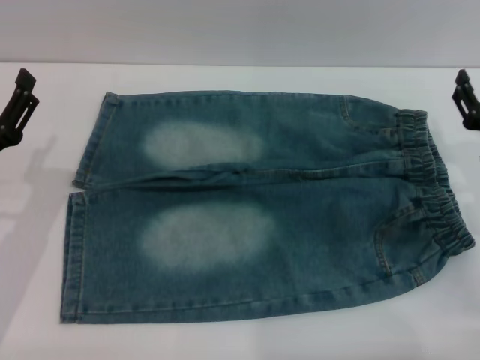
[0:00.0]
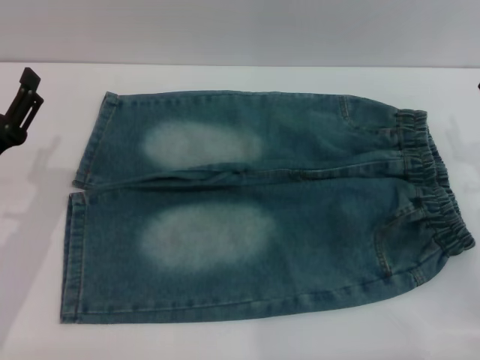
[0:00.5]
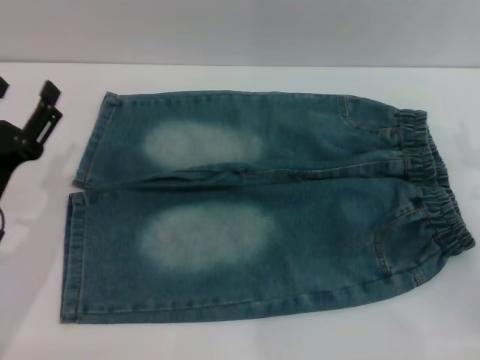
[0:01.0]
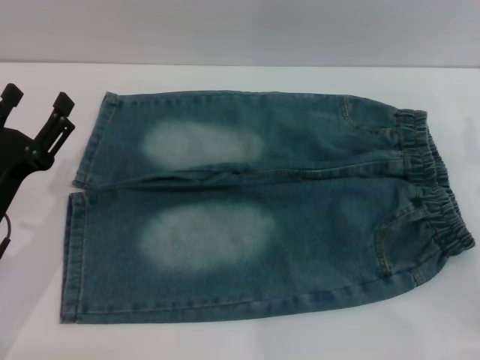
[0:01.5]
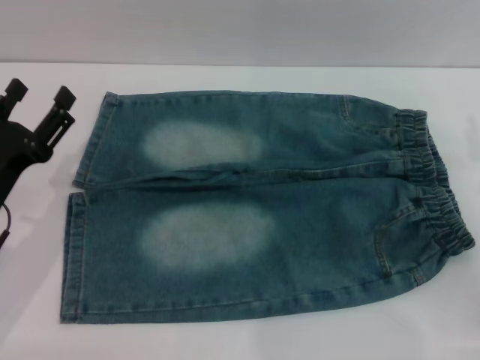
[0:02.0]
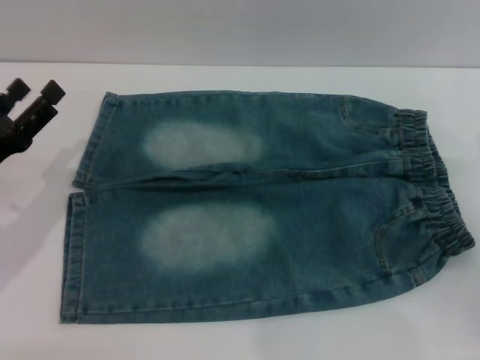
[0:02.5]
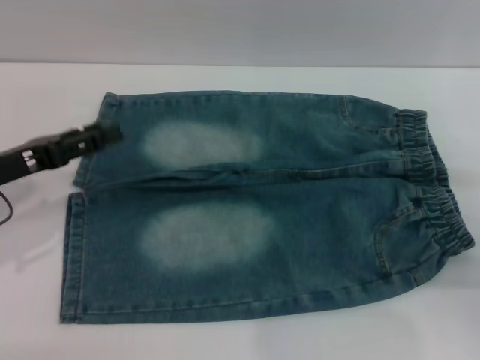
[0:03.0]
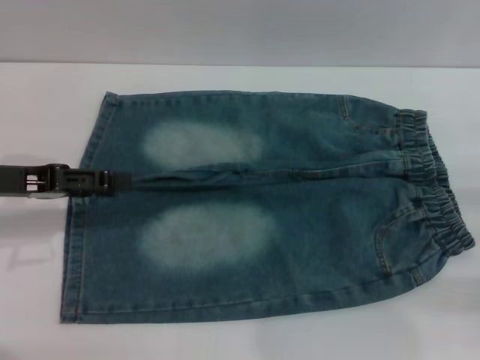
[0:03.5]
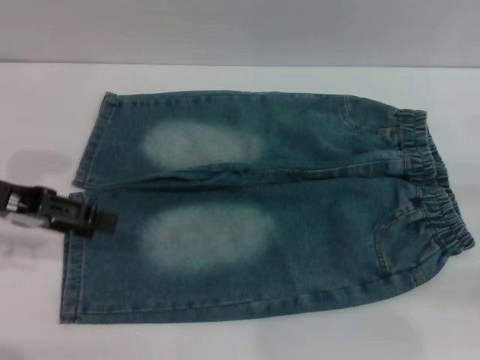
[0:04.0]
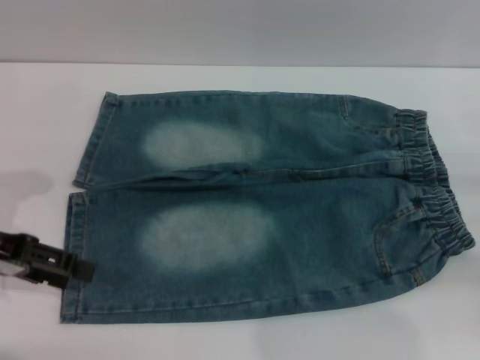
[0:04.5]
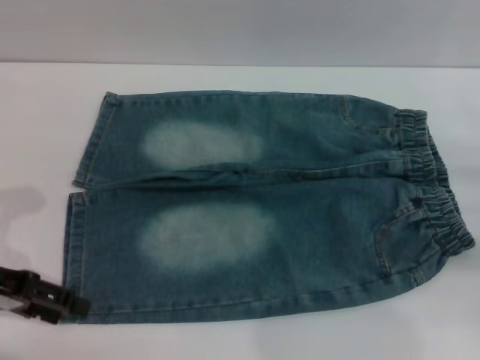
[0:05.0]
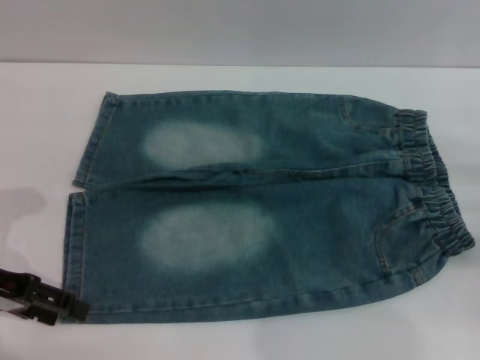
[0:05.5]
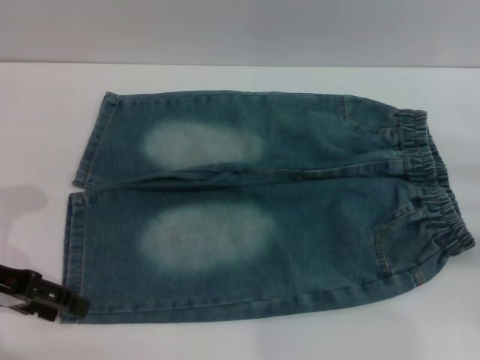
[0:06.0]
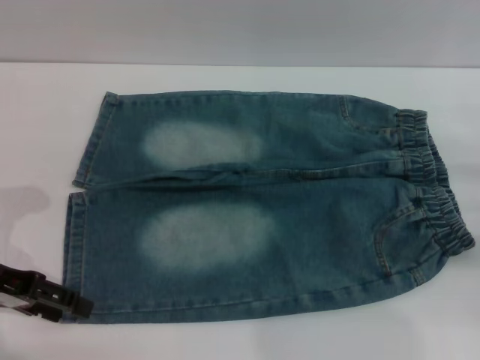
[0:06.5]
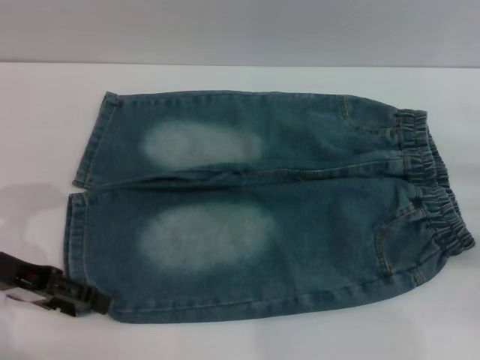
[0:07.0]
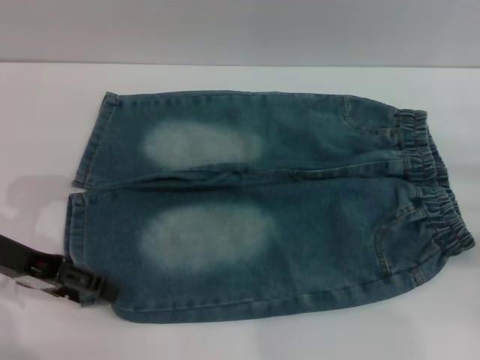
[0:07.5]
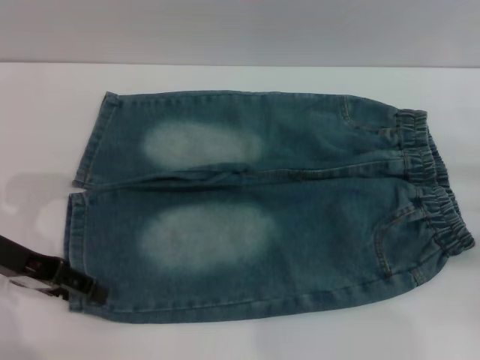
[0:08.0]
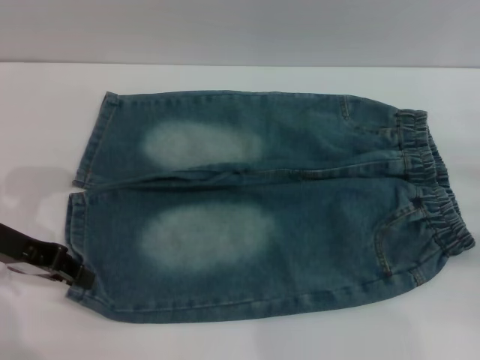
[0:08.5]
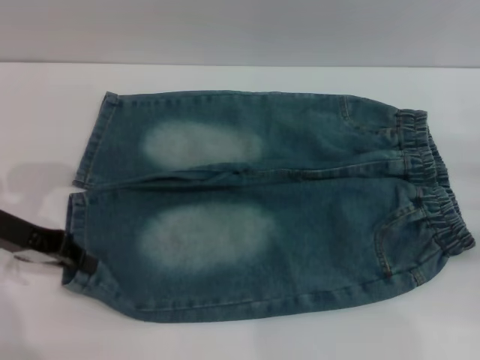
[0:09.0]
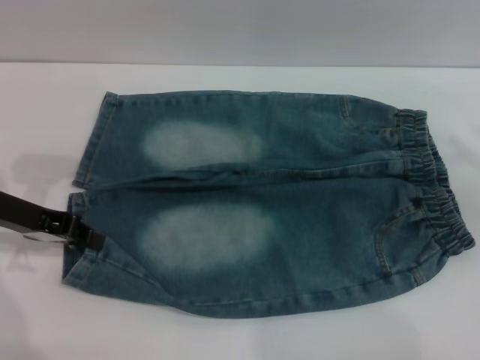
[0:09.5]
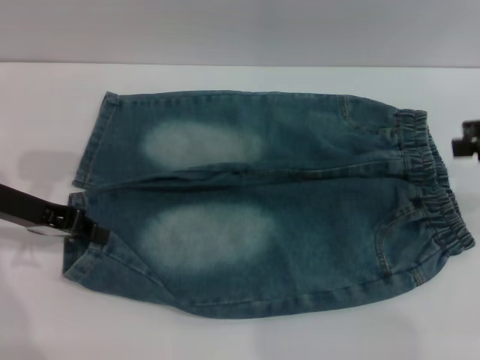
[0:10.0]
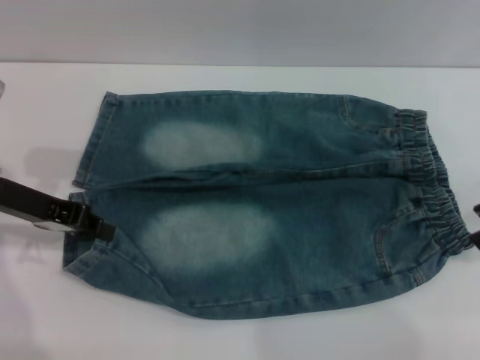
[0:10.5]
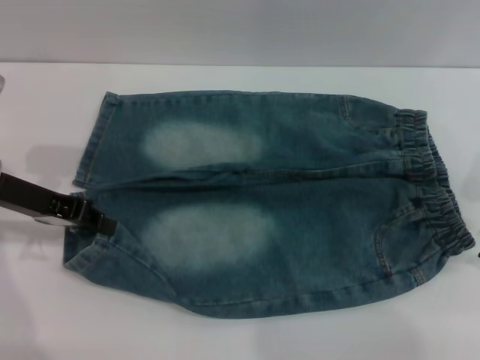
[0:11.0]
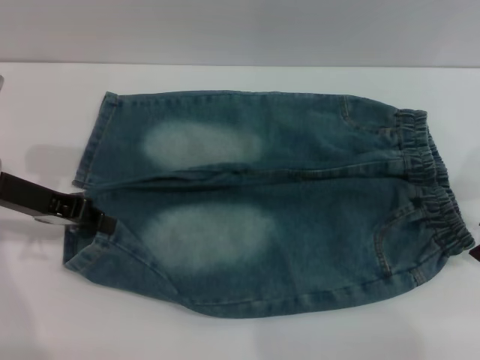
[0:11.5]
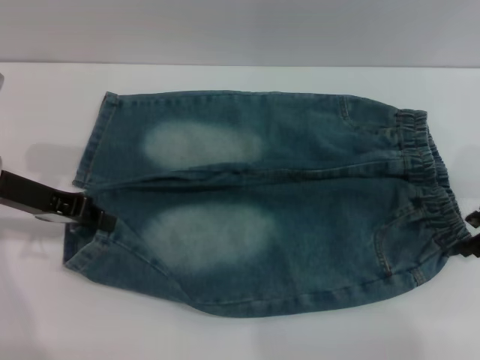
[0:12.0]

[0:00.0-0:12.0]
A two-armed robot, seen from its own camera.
0:00.0 to 0:02.0: The grippers make only small movements.
0:02.0 to 0:04.0: The left gripper travels upward and forward by roughly 15 cm.
0:04.0 to 0:06.0: The left gripper goes roughly 5 cm downward.
0:06.0 to 0:08.0: The grippers stay close to where they were, moving slightly.
0:08.0 to 0:10.0: The right gripper heads upward and forward, covering roughly 15 cm. Meanwhile the left gripper closes its fingers.
0:10.0 to 0:12.0: The right gripper goes some 5 cm to the left.

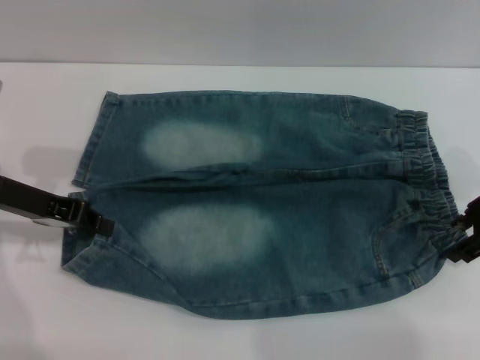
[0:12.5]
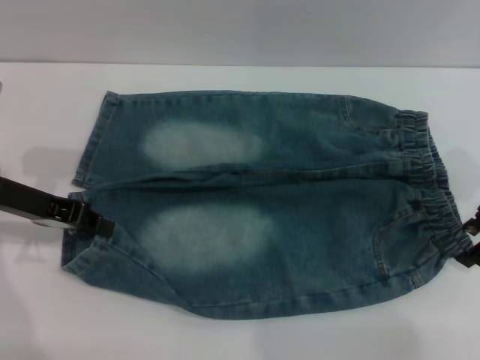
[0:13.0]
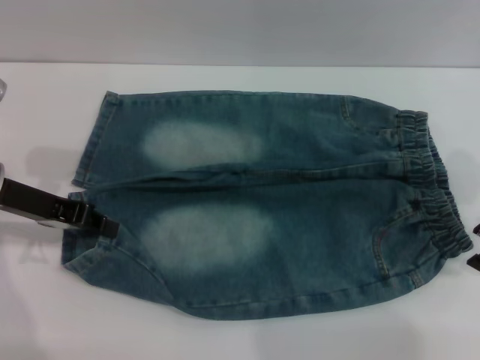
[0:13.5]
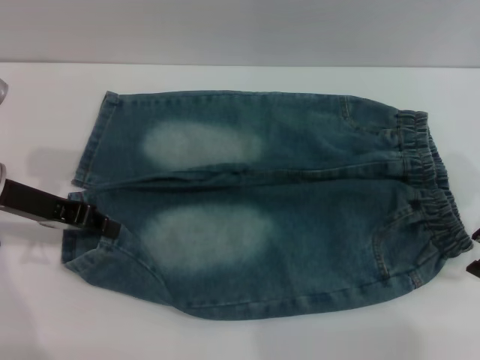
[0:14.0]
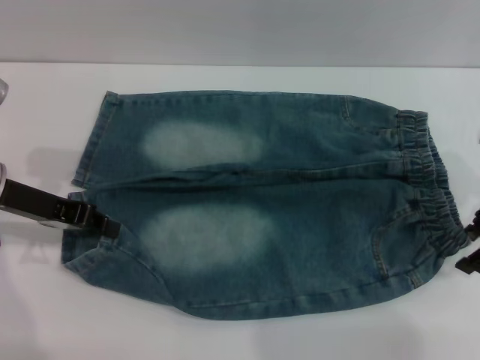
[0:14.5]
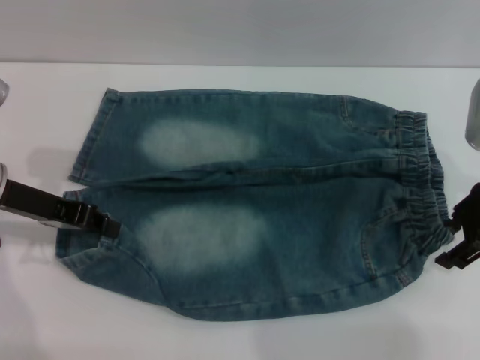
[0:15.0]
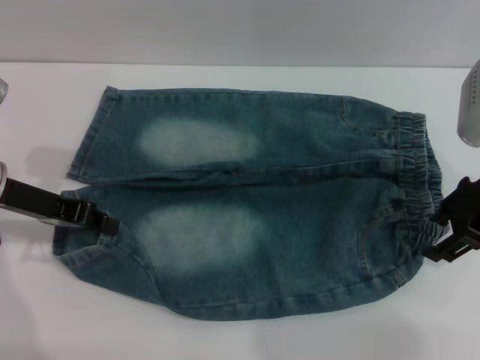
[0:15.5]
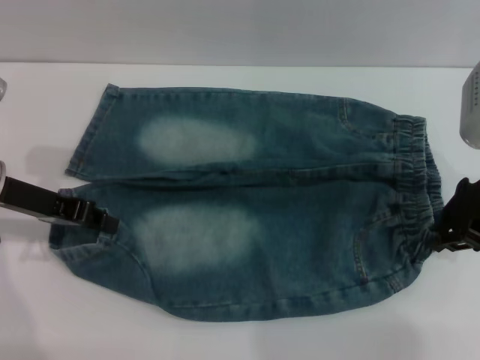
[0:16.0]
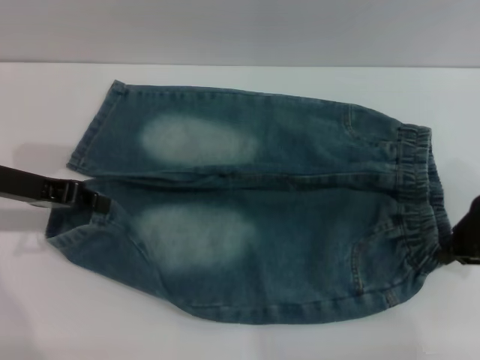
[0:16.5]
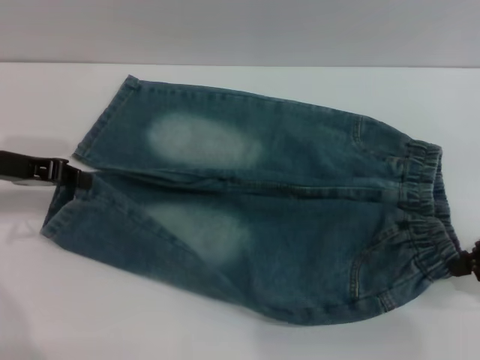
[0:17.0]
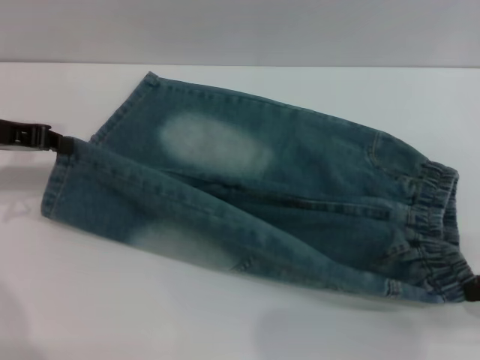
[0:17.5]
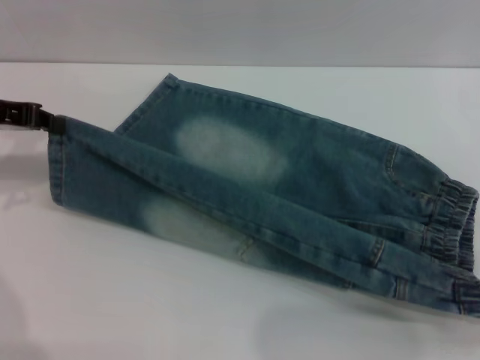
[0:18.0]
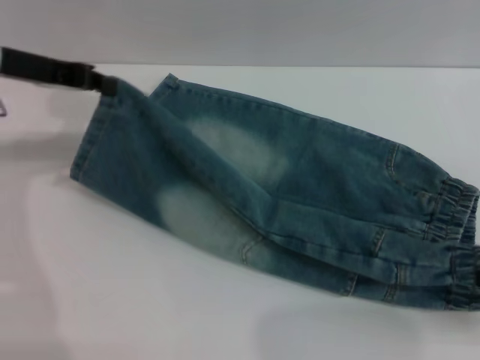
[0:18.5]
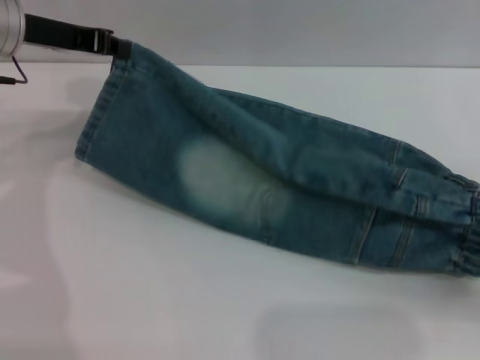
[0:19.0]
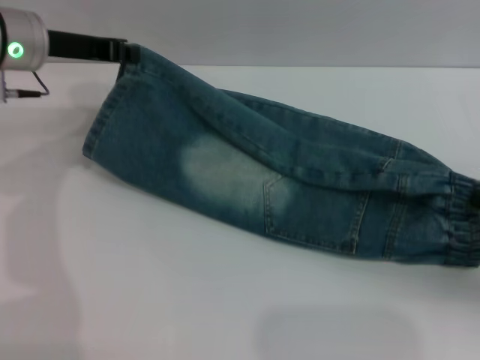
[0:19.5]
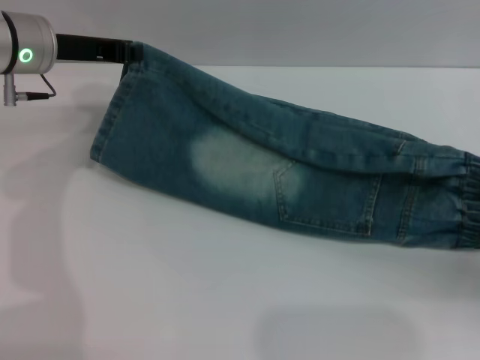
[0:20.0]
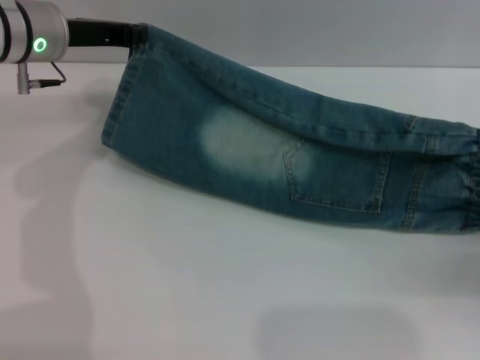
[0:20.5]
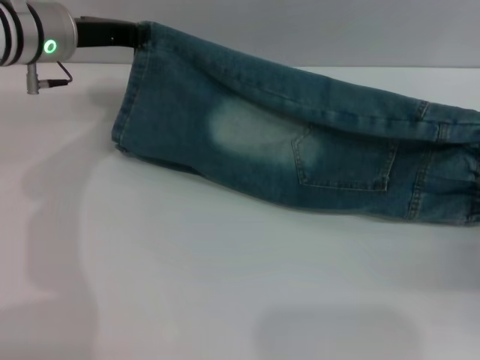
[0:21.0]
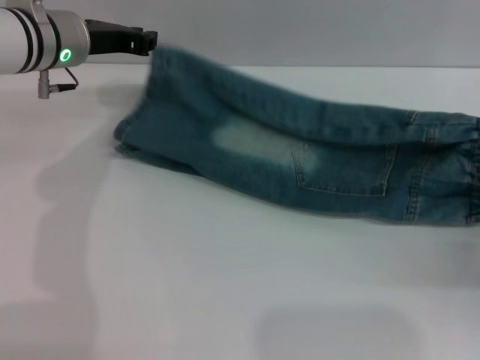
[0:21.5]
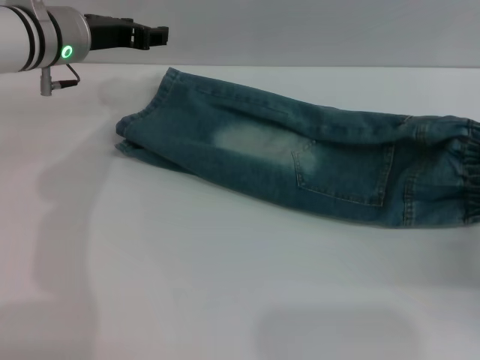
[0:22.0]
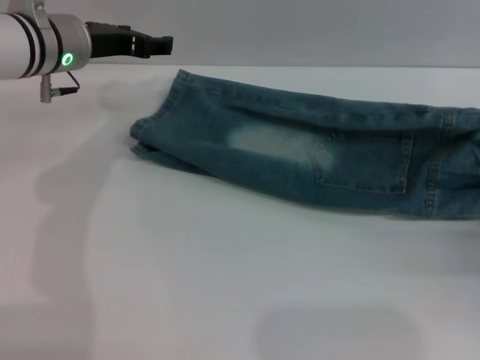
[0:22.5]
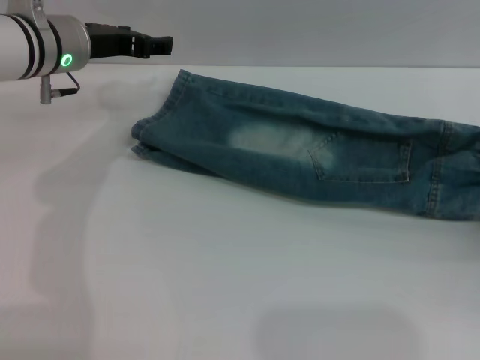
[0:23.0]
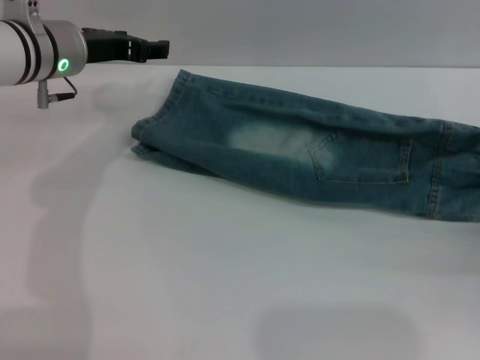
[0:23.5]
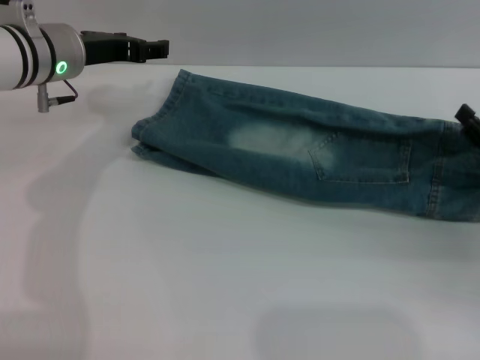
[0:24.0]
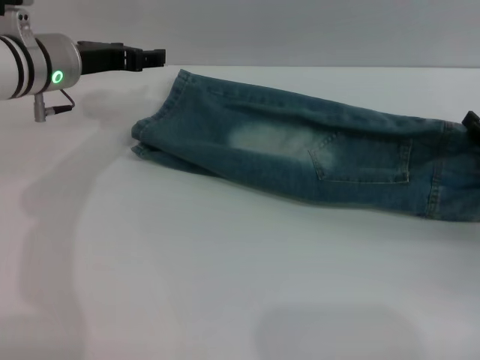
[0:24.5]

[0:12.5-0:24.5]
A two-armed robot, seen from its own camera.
Step, 0:12.5 to 0:22.0: Fold the bottom of the pants upward with both grippers.
0:12.5 to 0:14.5: The grippers move only a little.
0:14.5 to 0:16.5: The right gripper closes.
0:16.5 to 0:18.5: The right gripper goes some 15 cm backward, to the right and downward; the left gripper heads upward and forward, covering some 10 cm.
0:18.5 to 0:20.5: The left gripper goes approximately 5 cm to the right. Meanwhile the right gripper shifts by roughly 5 cm.
0:20.5 to 0:22.5: The left gripper opens up.
0:22.5 to 0:24.5: The right gripper opens its fingers.

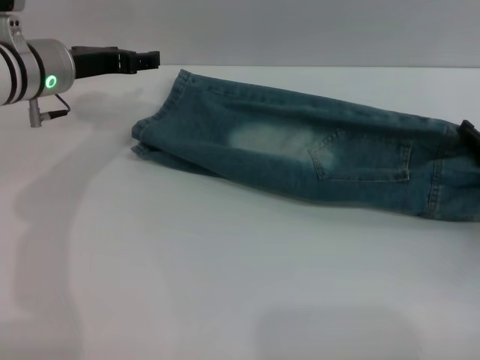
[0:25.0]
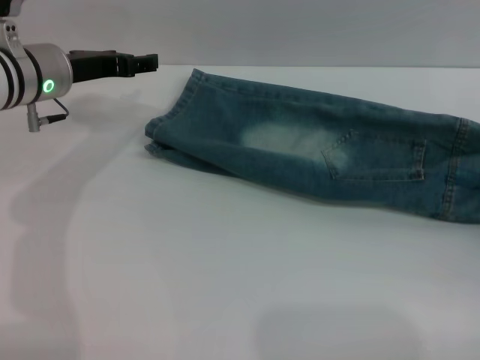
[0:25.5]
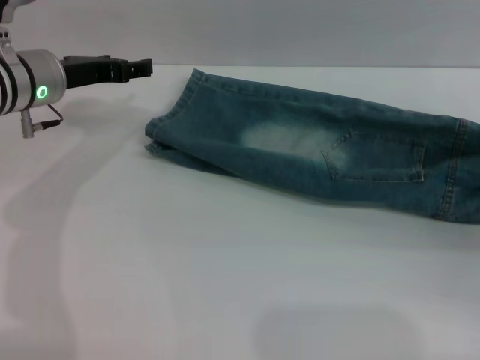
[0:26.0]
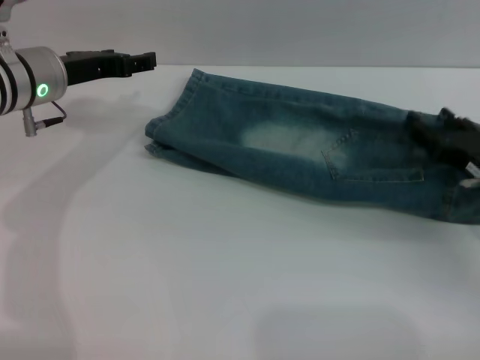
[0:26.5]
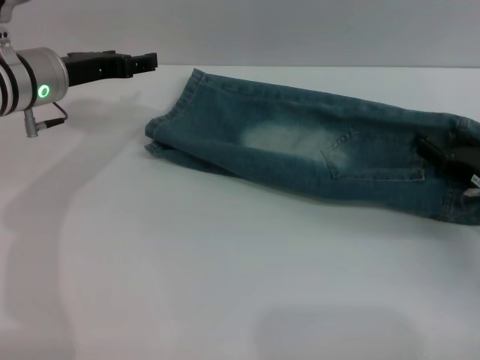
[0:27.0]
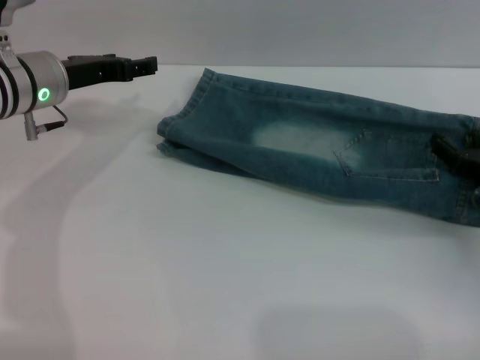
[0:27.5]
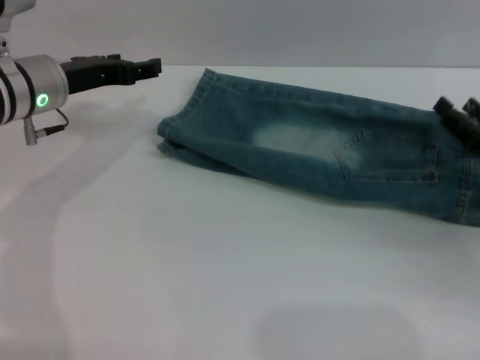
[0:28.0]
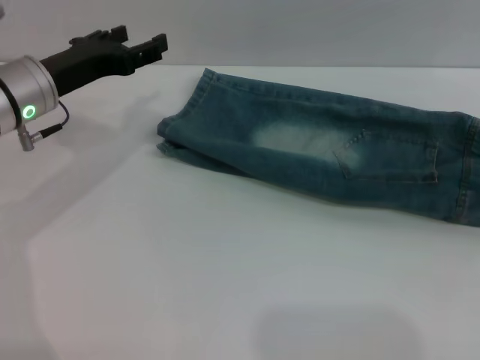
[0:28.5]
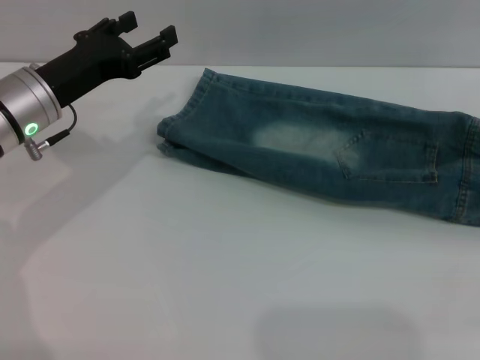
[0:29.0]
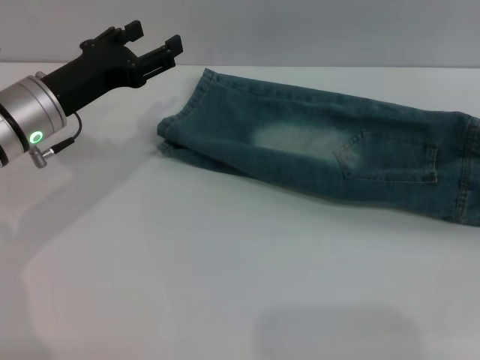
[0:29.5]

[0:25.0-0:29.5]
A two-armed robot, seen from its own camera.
0:25.0 to 0:27.0: There are only small adjustments of the grippers.
0:27.0 to 0:29.5: The right gripper goes some 15 cm upward and to the right, while the left gripper moves backward, roughly 5 cm.
